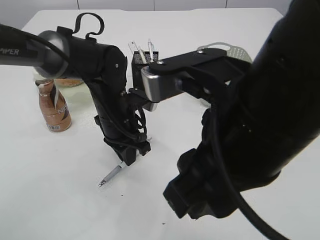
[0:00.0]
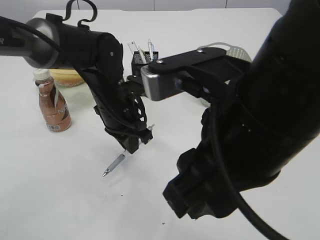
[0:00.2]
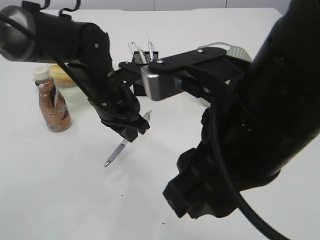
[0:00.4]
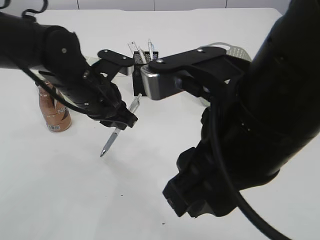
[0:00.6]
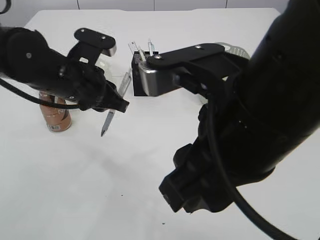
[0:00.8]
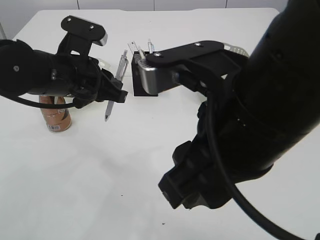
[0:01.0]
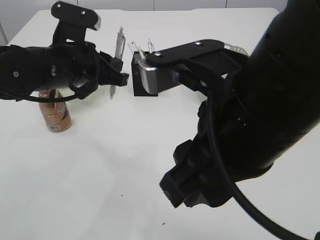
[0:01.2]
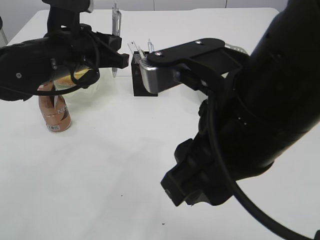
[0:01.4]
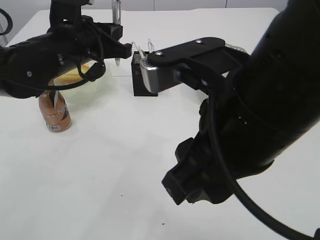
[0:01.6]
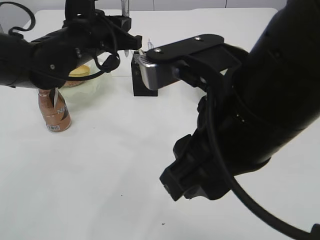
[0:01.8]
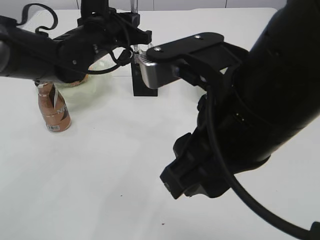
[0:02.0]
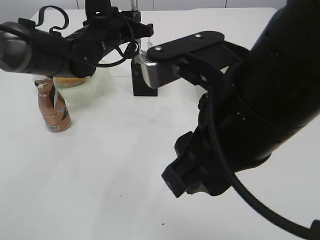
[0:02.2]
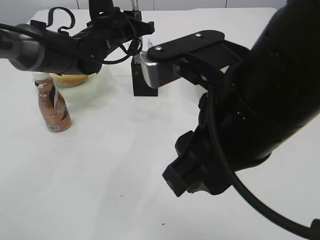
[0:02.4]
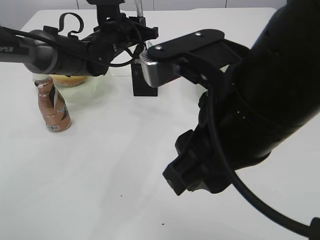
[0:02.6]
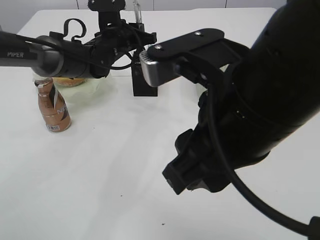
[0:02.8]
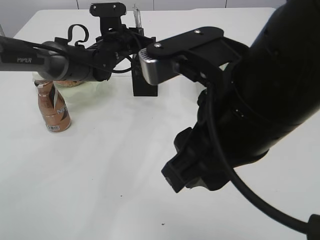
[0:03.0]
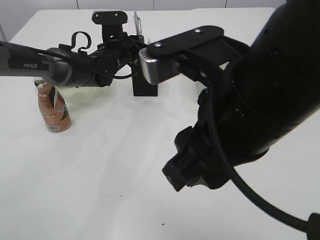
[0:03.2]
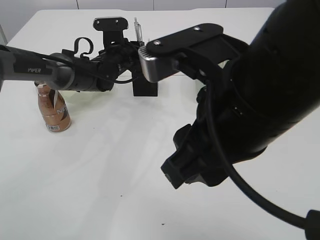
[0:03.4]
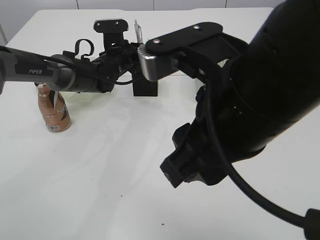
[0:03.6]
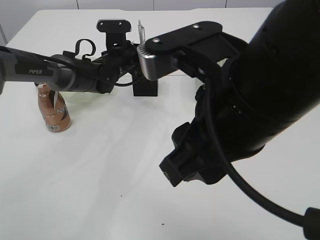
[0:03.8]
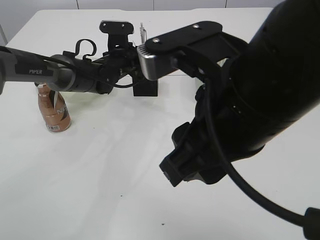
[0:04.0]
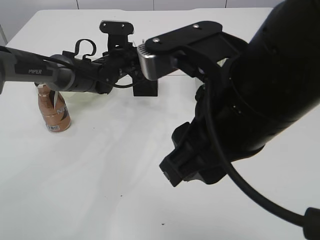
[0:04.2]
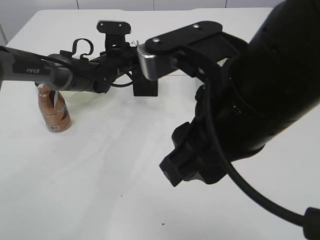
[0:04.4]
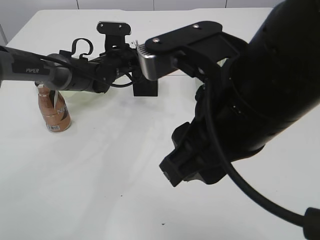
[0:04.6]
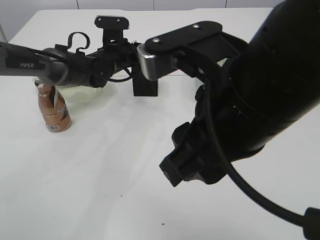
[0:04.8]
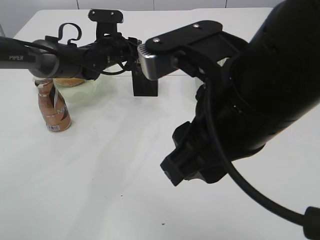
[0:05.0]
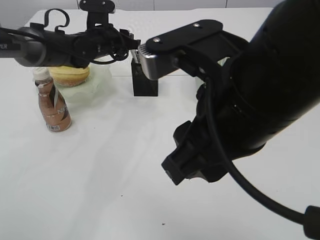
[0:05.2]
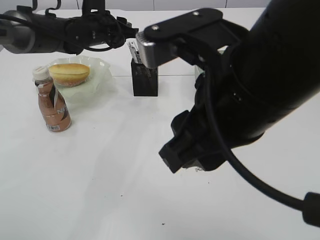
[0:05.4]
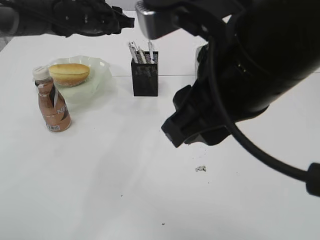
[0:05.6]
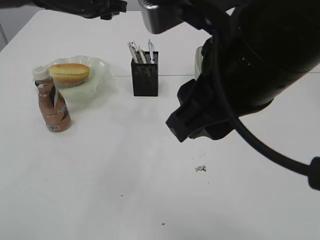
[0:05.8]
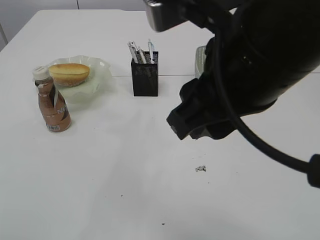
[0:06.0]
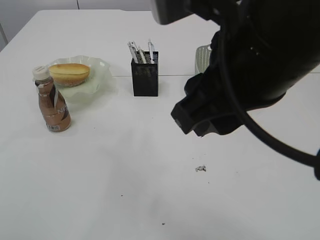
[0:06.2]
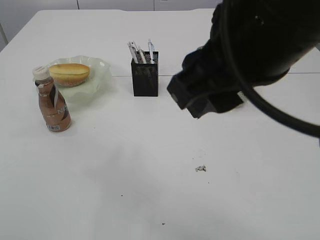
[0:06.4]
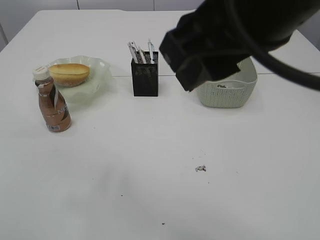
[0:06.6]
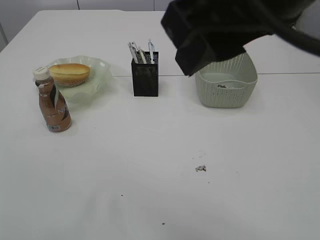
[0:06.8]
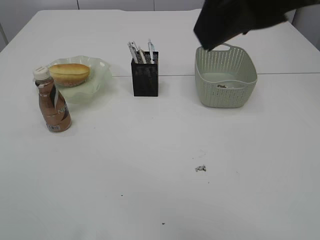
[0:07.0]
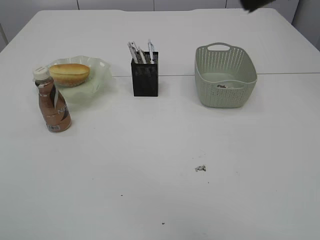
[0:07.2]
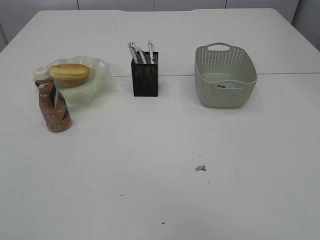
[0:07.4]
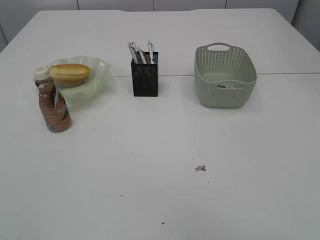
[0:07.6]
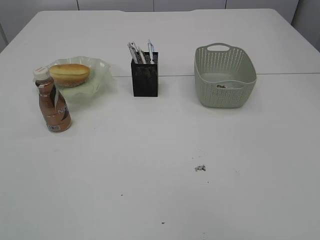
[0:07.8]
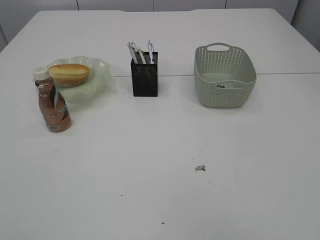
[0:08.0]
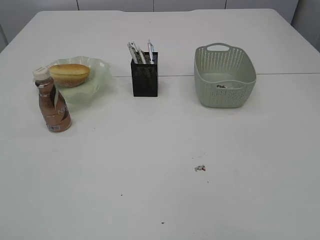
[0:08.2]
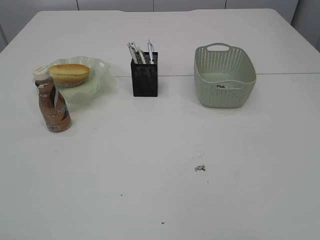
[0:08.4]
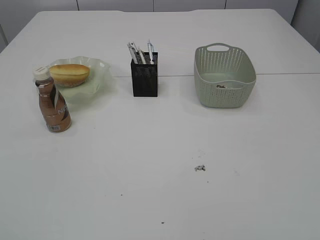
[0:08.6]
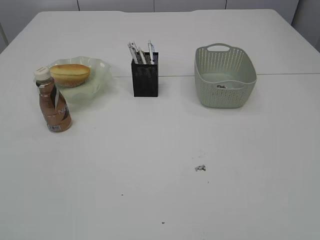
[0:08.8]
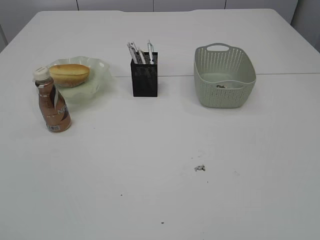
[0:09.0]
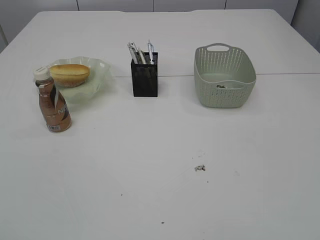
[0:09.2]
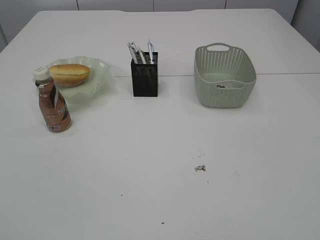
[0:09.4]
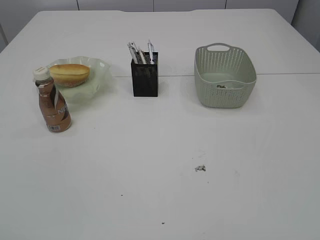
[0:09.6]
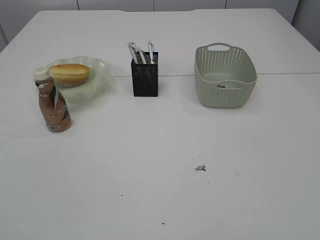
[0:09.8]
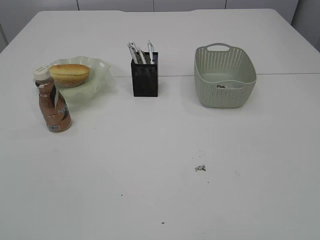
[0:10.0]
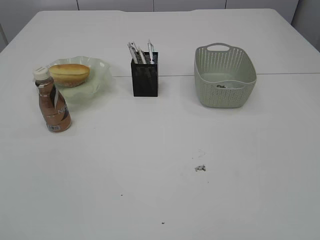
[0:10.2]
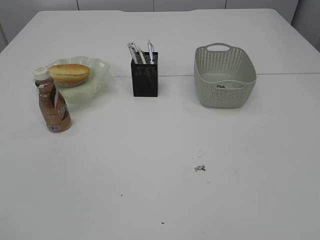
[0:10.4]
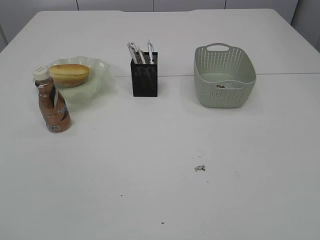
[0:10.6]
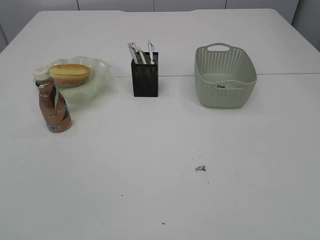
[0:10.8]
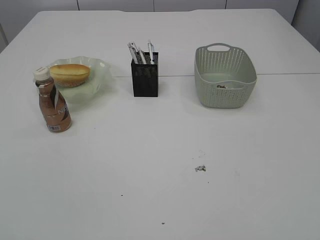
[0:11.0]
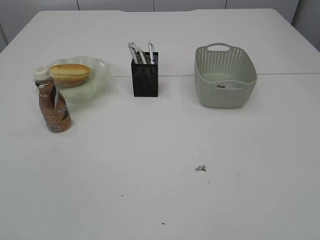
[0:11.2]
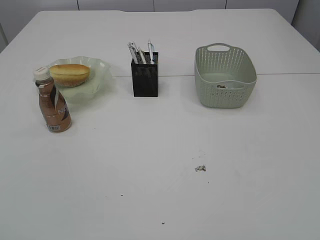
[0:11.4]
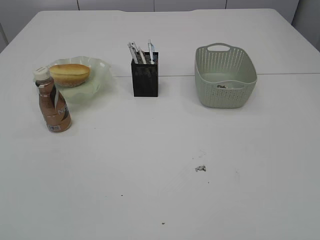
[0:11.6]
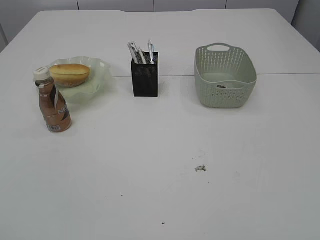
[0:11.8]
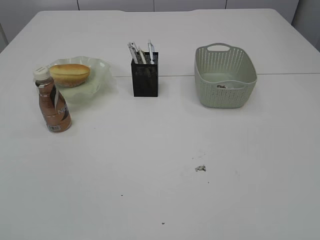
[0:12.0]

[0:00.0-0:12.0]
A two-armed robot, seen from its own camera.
Step, 0:00.8 to 0:05.2: Place the pen into the pen holder.
0:00.0 to 0:01.6: The left gripper moves upward and to the left, some 15 cm.
0:01.6 to 0:03.0: The left gripper goes approximately 15 cm forward and downward.
0:03.0 to 0:04.4: The left gripper opens.
0:04.4 to 0:06.0: The left gripper travels upward by some 20 cm.
0:06.0 to 0:07.6: The right gripper travels upward, to the right and backward by about 20 cm. Meanwhile the left gripper travels backward and upward by about 40 cm.
